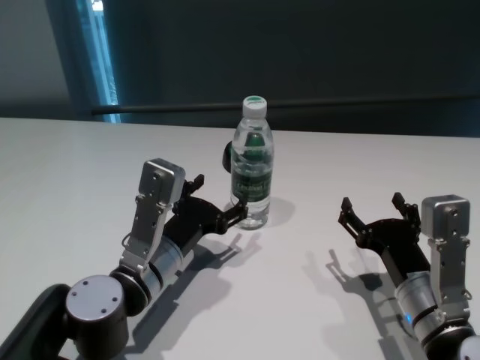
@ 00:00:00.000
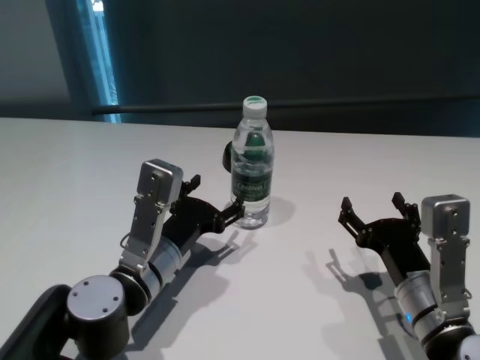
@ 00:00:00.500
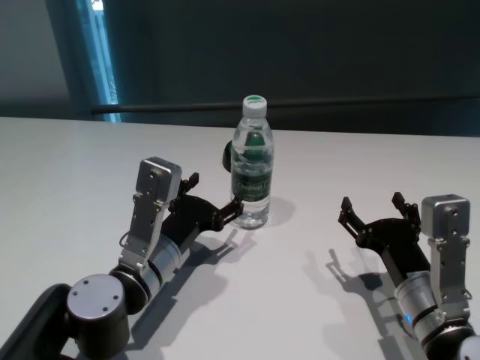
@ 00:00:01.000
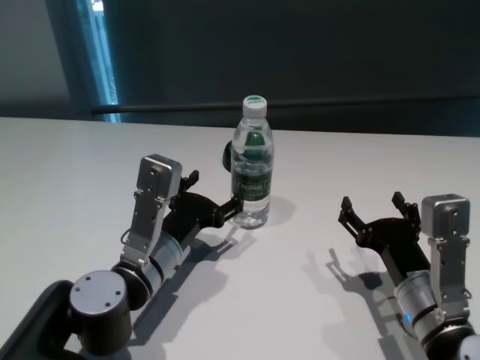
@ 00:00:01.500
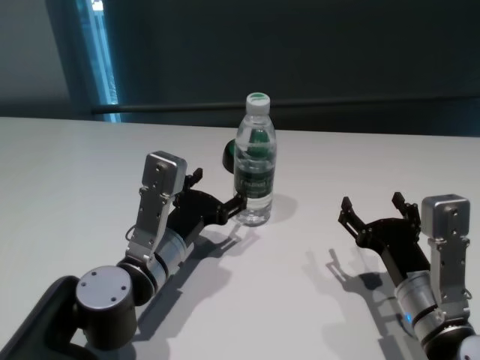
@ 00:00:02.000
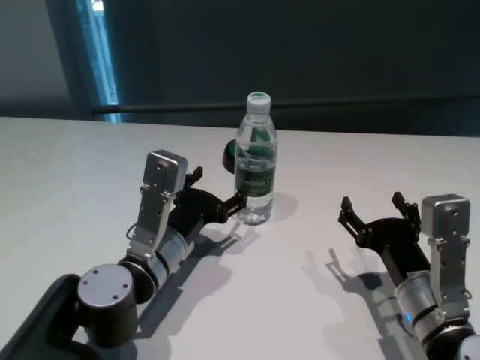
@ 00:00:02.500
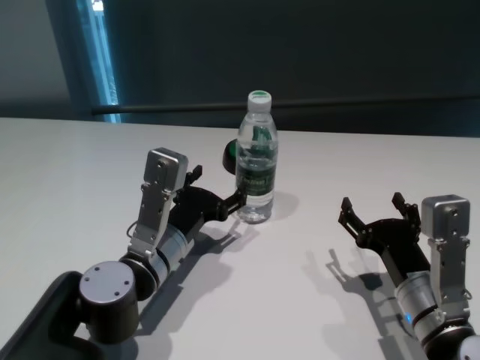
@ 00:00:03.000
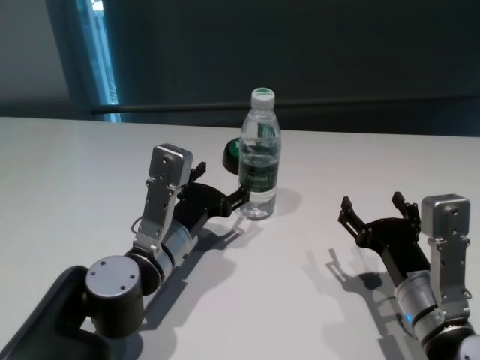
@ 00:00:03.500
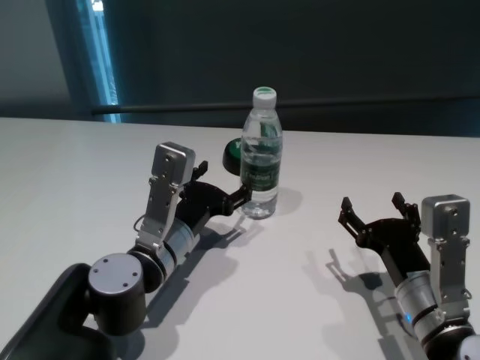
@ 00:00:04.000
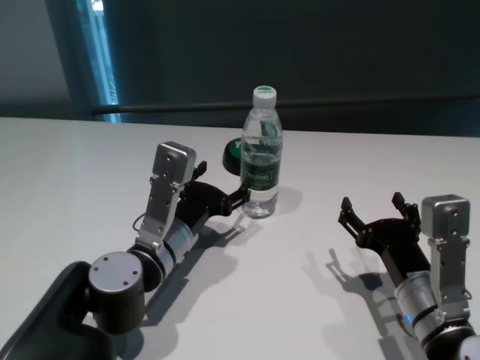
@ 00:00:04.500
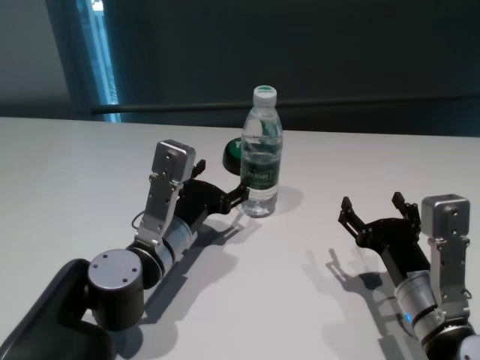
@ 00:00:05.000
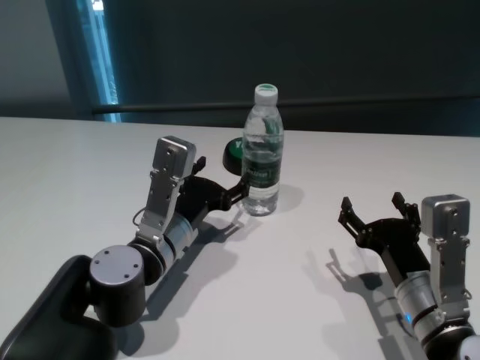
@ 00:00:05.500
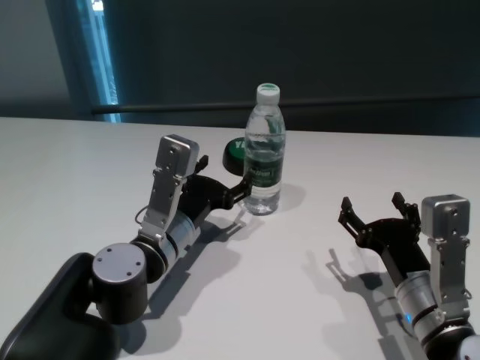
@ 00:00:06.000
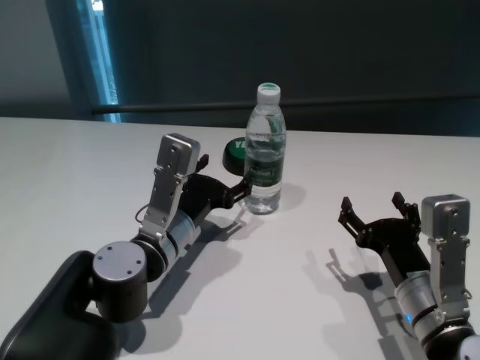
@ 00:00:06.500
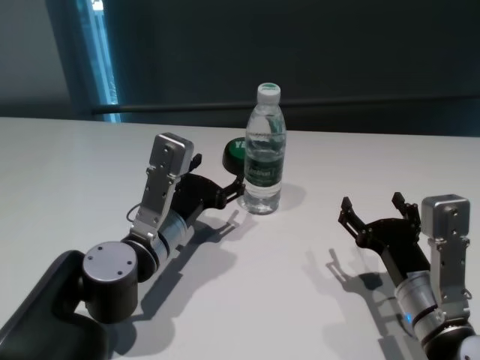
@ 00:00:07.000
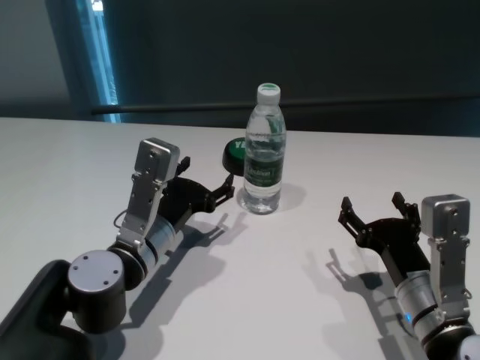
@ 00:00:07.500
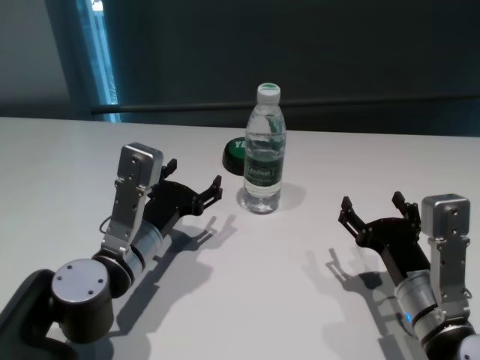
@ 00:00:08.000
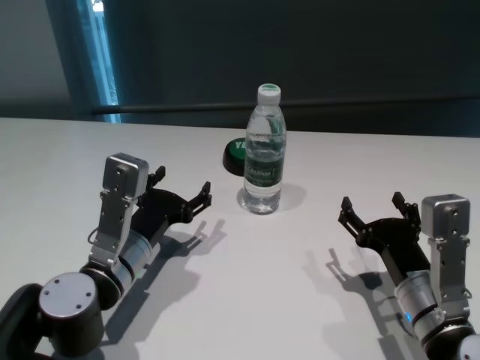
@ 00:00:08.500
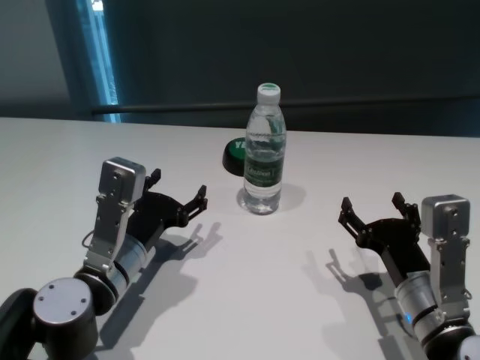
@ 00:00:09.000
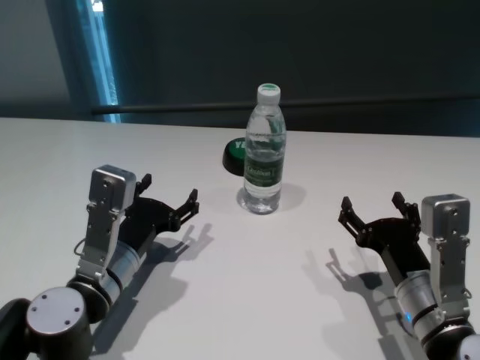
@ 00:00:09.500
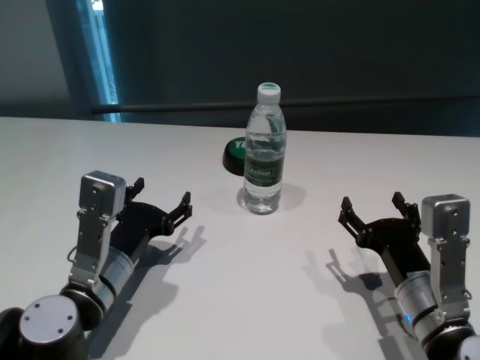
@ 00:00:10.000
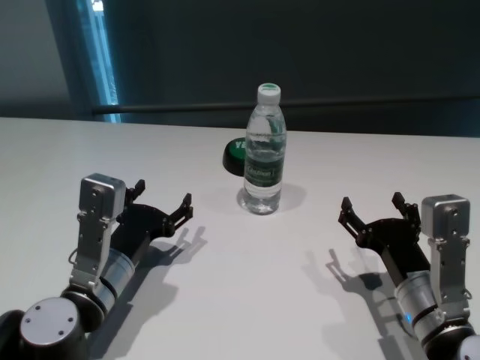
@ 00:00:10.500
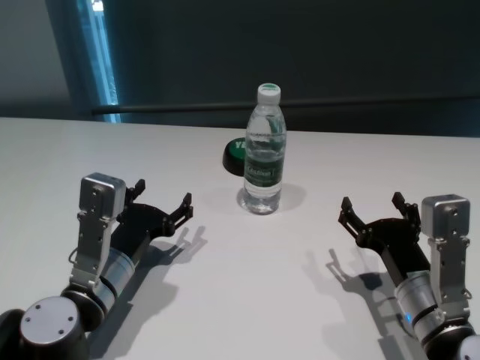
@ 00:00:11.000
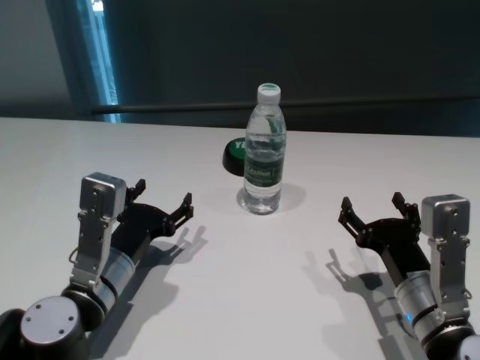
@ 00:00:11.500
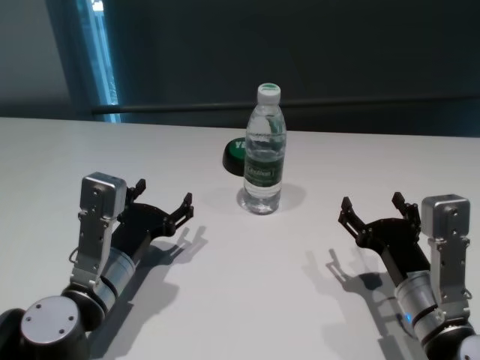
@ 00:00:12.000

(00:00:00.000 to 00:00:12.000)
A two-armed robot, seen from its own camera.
Task of the whole recording: return to a safe position after touching an obstacle with your arm on the white table.
Step, 00:00:00.000 - 00:00:07.000: Touch the bottle with left gripper.

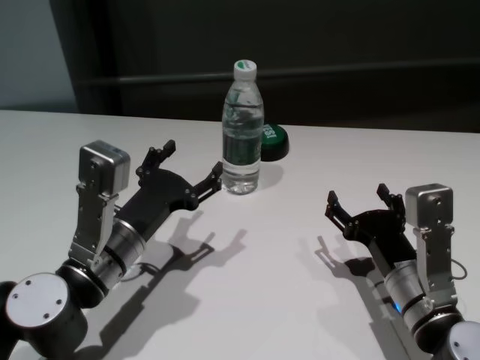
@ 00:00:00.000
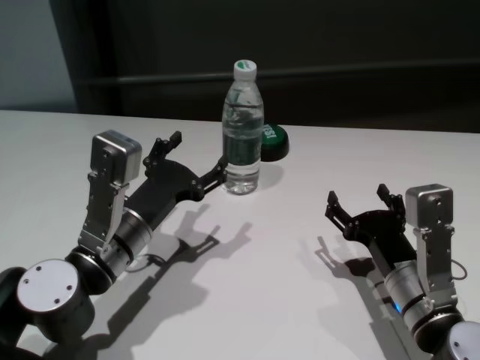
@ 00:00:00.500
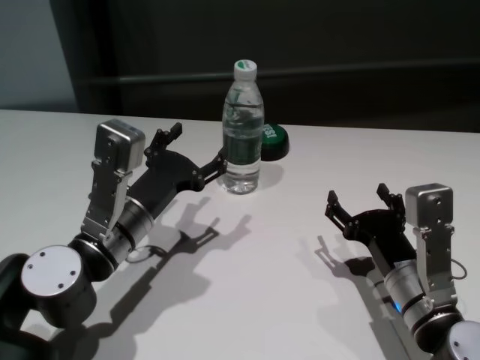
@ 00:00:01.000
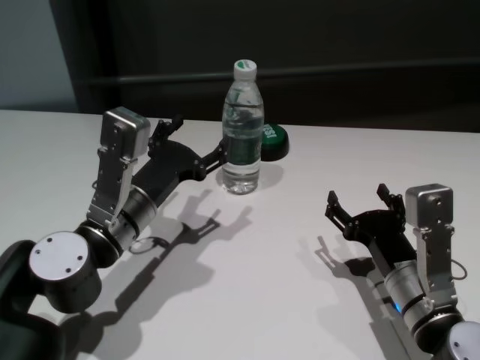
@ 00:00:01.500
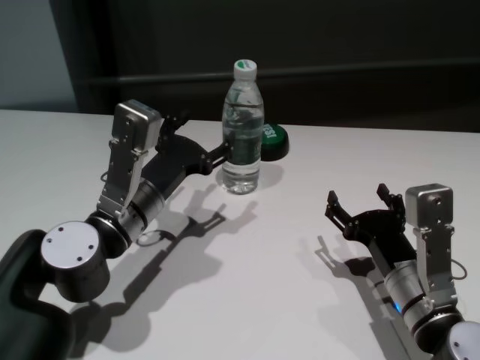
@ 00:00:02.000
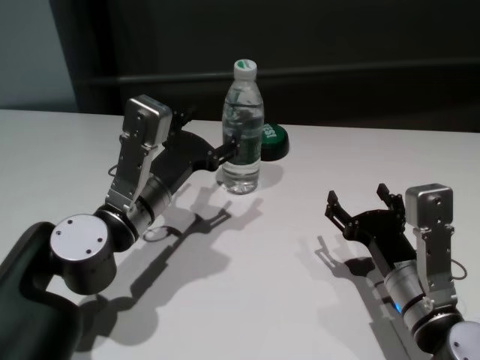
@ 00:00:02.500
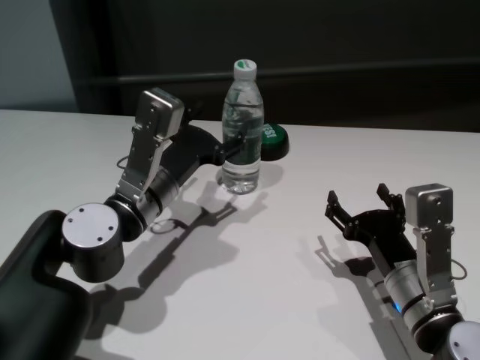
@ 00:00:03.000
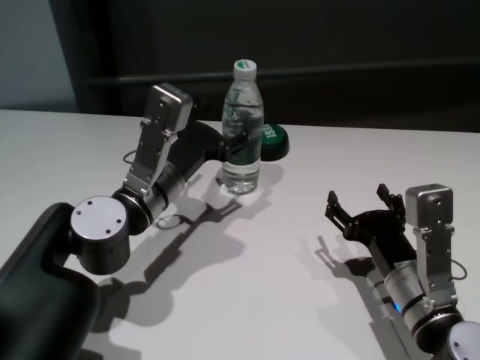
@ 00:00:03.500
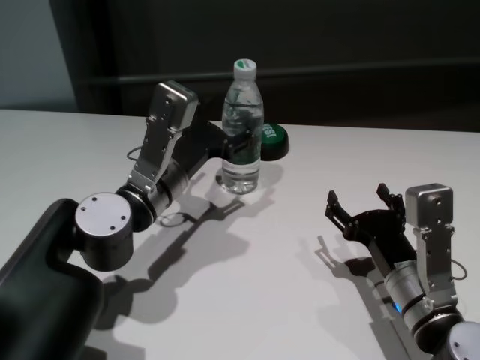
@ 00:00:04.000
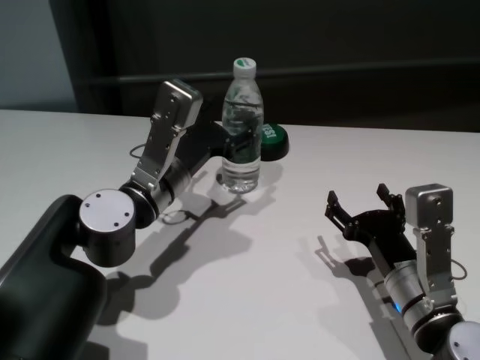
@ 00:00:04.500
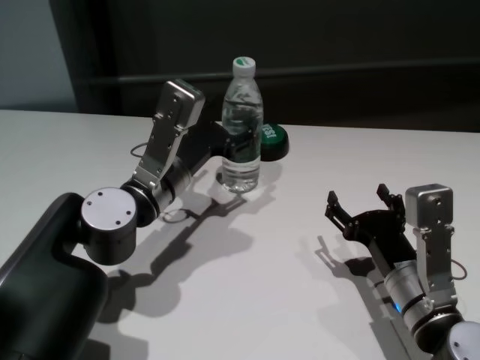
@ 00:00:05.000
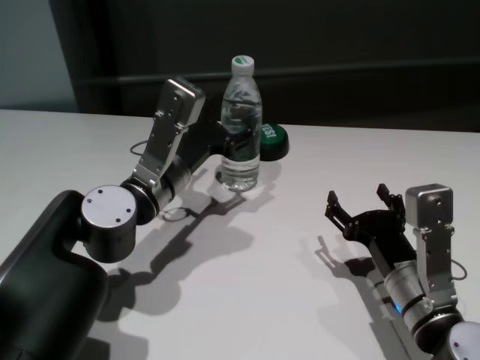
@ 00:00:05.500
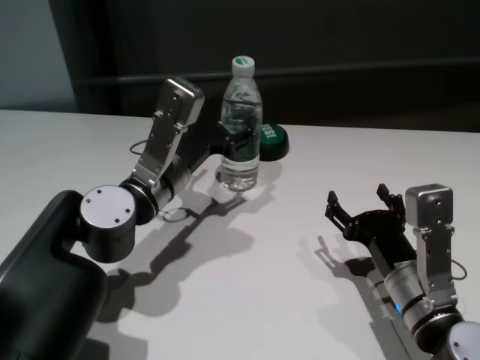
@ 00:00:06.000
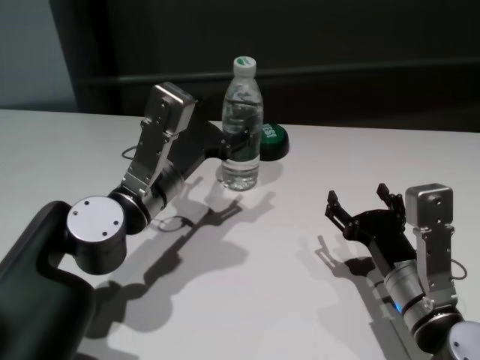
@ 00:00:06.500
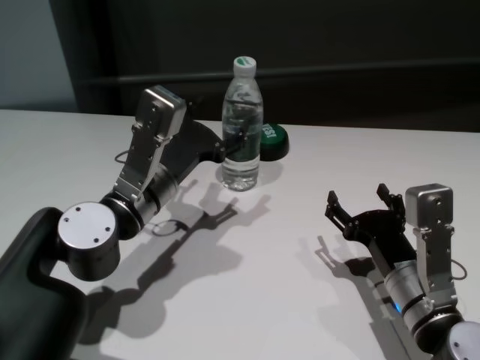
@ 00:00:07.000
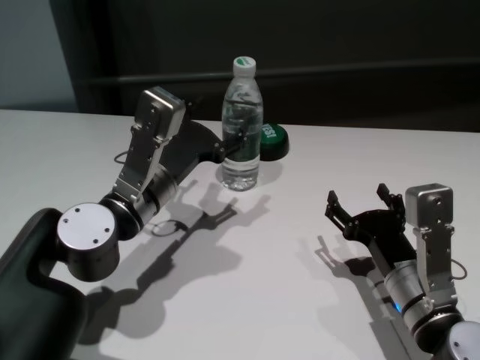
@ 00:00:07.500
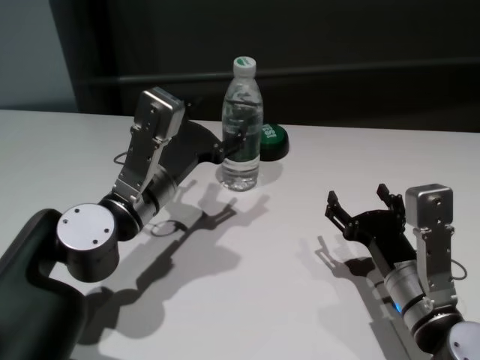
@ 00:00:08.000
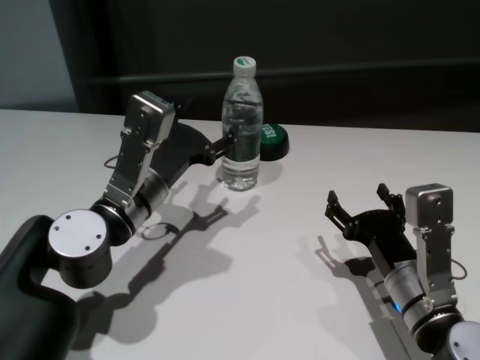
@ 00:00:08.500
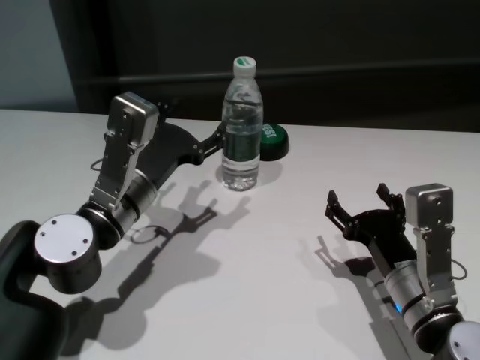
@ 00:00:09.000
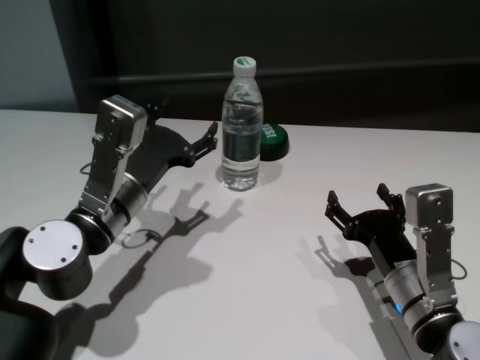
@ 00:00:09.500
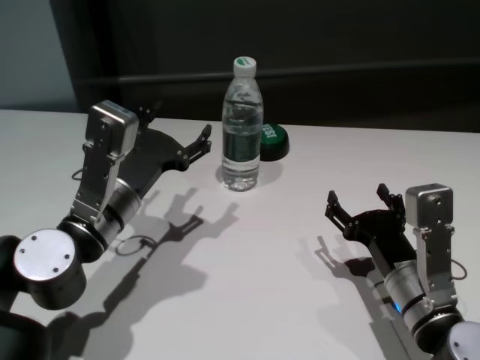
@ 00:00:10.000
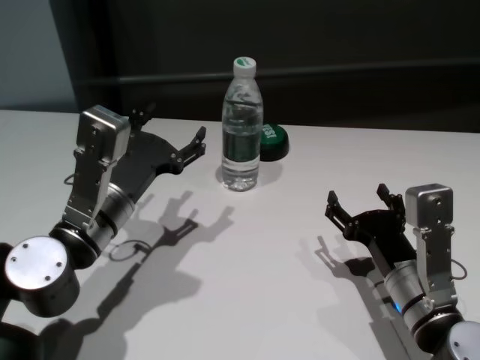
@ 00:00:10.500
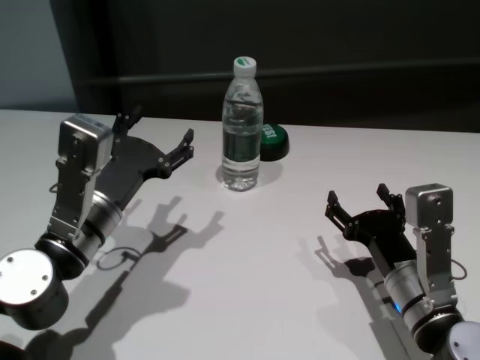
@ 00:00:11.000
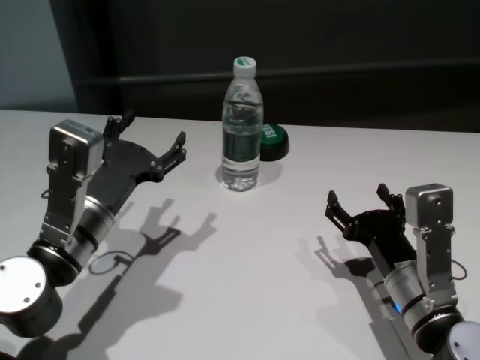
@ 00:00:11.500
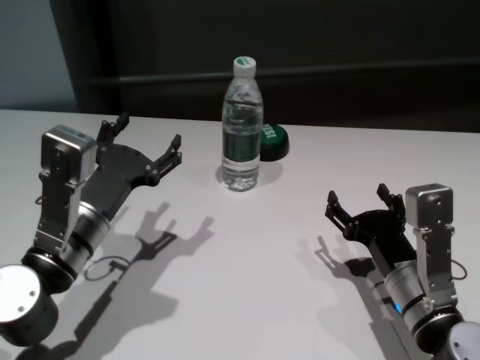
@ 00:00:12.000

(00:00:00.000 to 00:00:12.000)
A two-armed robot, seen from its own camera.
Task of the whole recording: return to a safe position after touching an obstacle with your arm on the white table.
Step, 00:00:00.000 - 00:00:09.500: Touch the bottle with left gripper.
